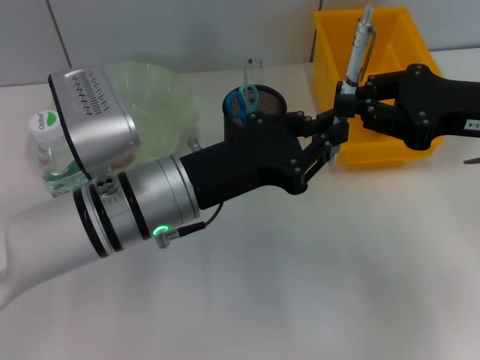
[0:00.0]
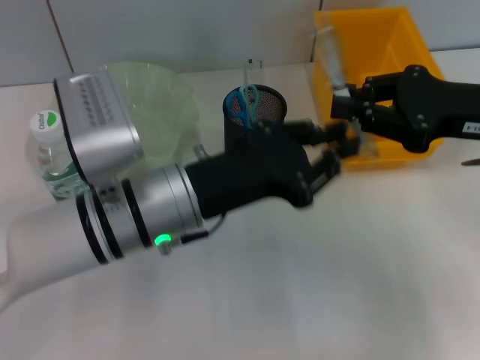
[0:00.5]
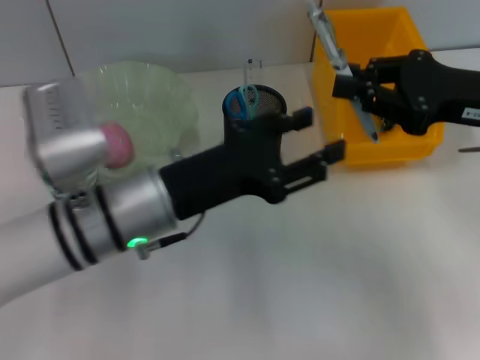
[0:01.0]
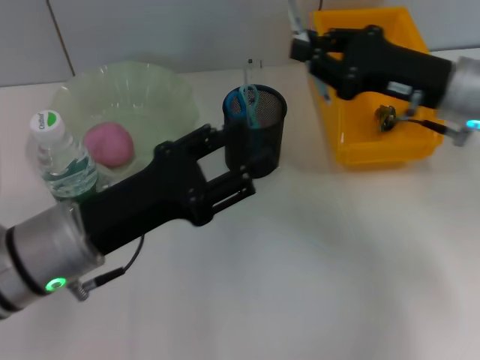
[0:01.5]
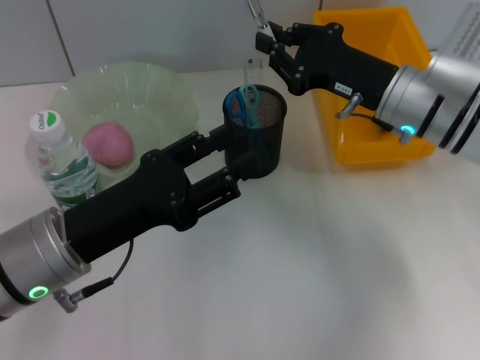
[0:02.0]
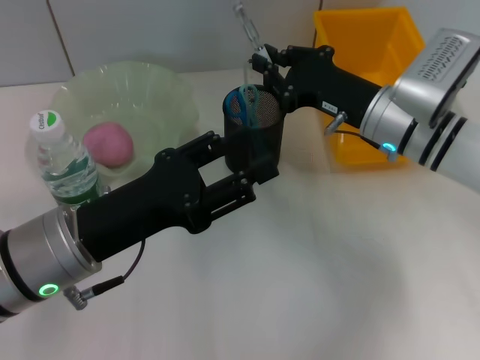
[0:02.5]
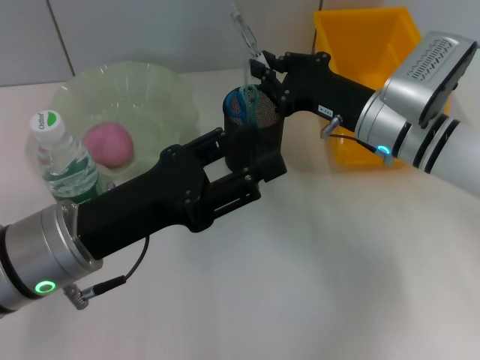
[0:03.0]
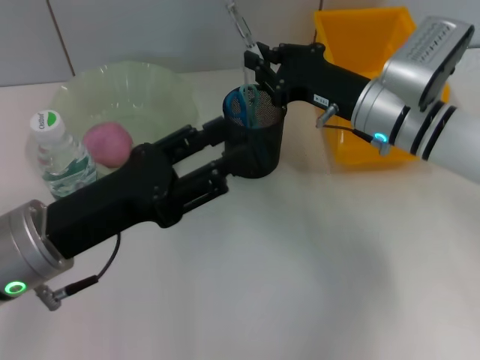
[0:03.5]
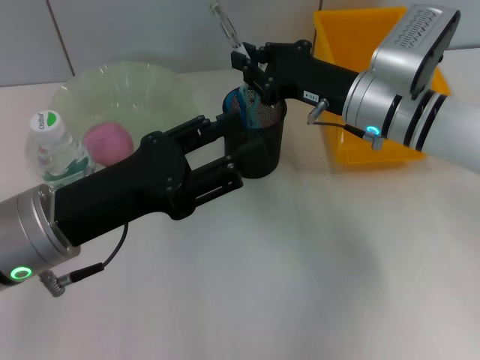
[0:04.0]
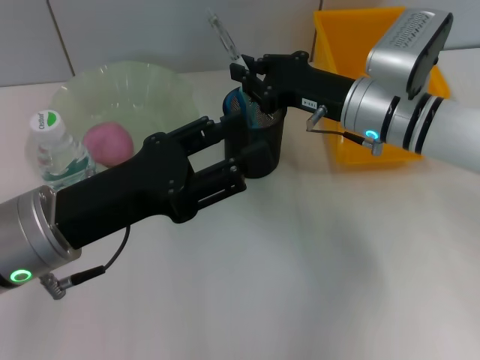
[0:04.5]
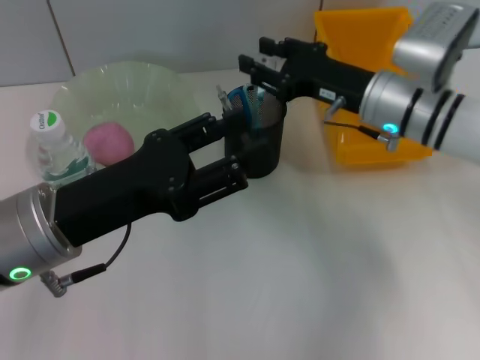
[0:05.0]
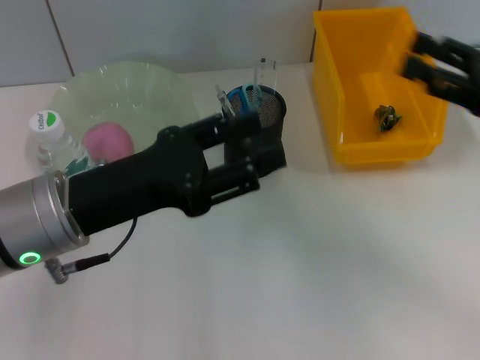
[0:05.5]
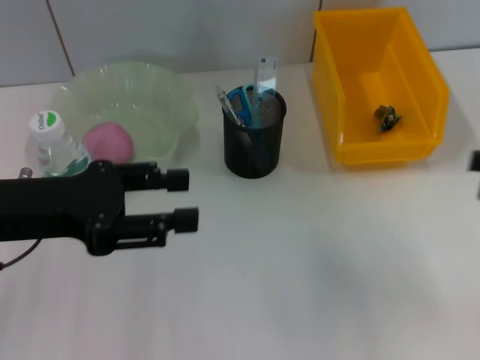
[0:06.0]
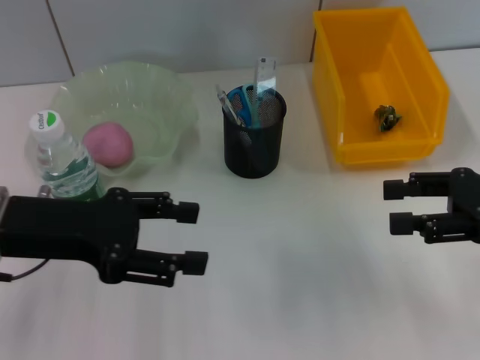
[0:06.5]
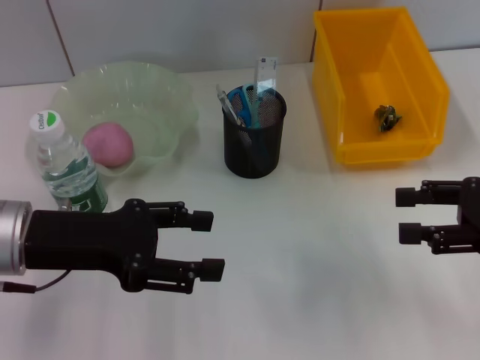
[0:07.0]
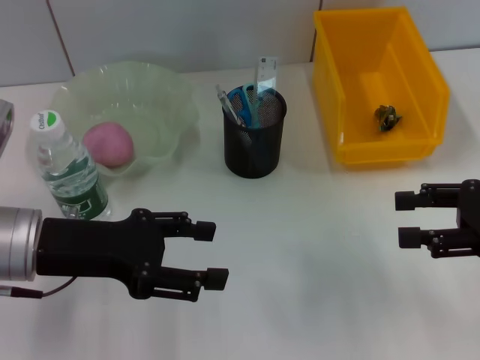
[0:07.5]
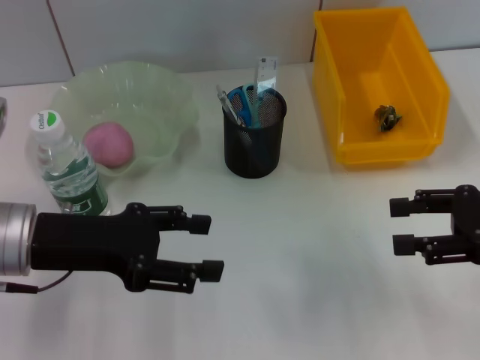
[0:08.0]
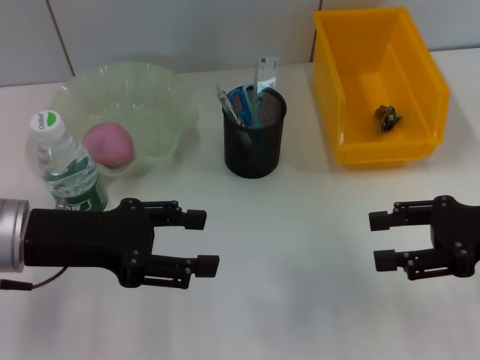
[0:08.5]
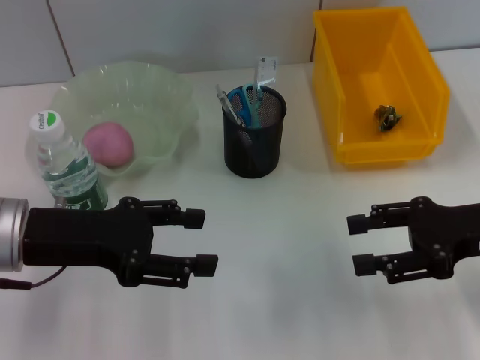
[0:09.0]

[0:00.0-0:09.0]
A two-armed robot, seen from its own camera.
Step, 0:01.0 to 0:04.5: Place the gray spring-action pen into the pen holder with the right hand.
0:00.0 to 0:02.0: The right gripper moves to the left, forward and downward, approximately 10 cm, while the left gripper travels to the left by roughly 10 cm, and opens up.
0:02.0 to 0:04.5: The grippers move only a little.
0:04.5 to 0:07.0: The left gripper moves approximately 5 cm. The right gripper goes some 20 cm to the right and backward, and opens.
0:07.0 to 0:09.0: There are only small adjustments of the grippers.

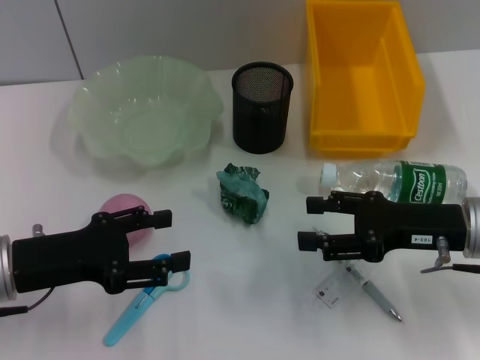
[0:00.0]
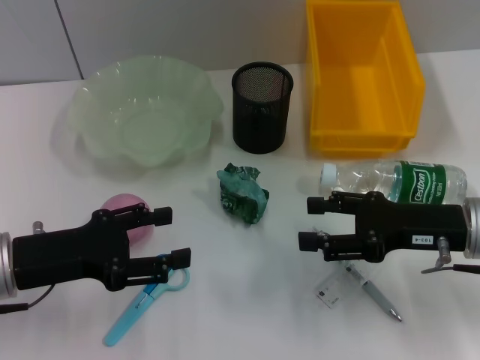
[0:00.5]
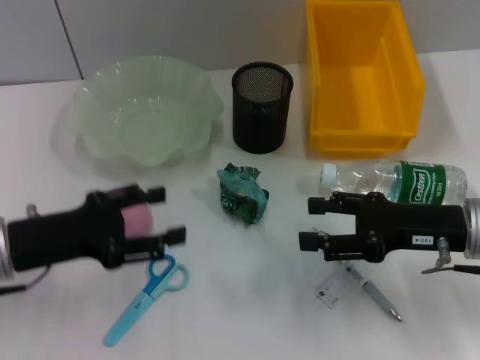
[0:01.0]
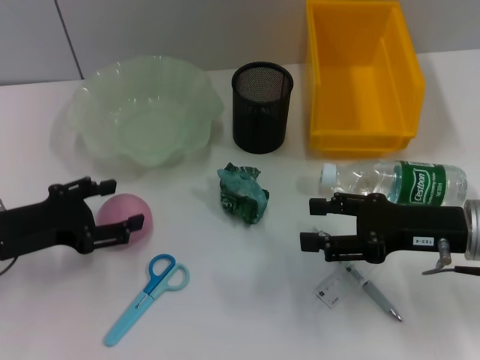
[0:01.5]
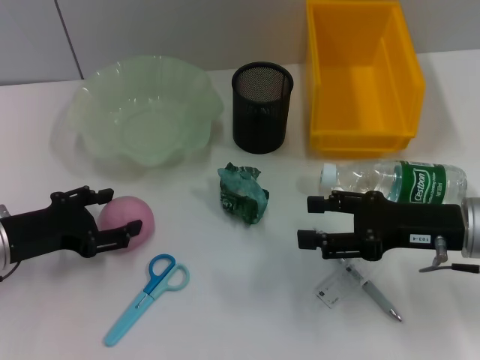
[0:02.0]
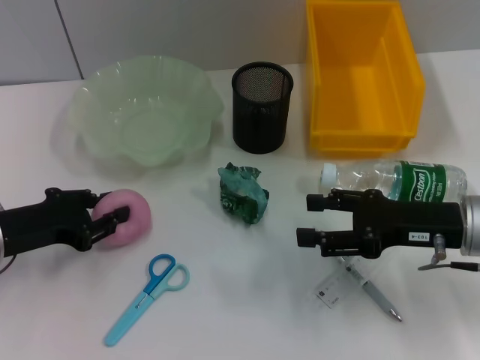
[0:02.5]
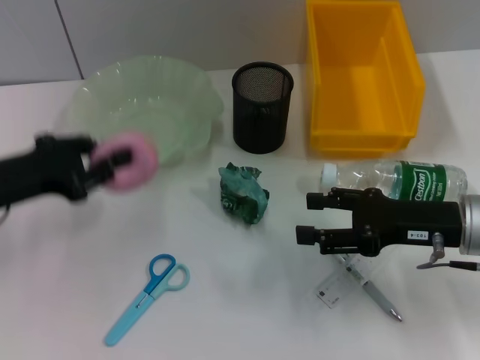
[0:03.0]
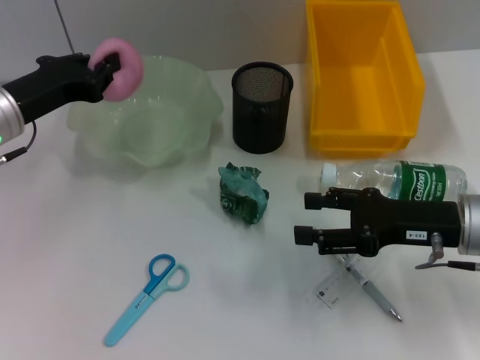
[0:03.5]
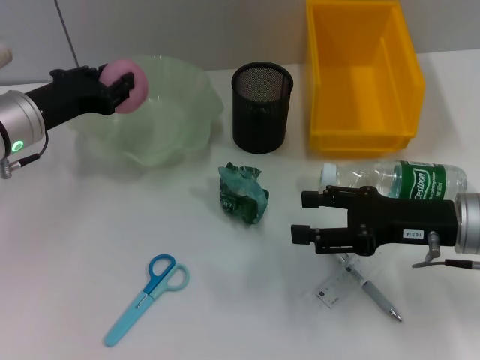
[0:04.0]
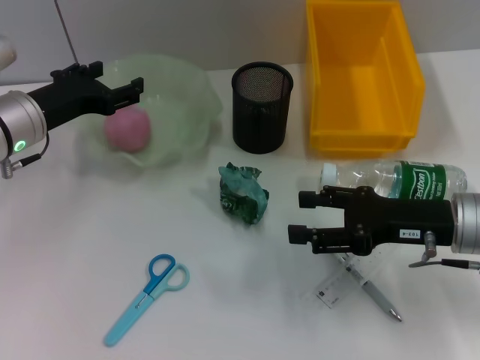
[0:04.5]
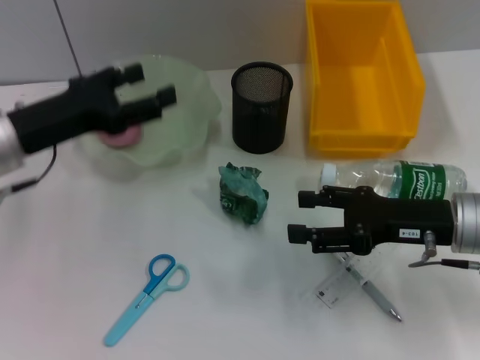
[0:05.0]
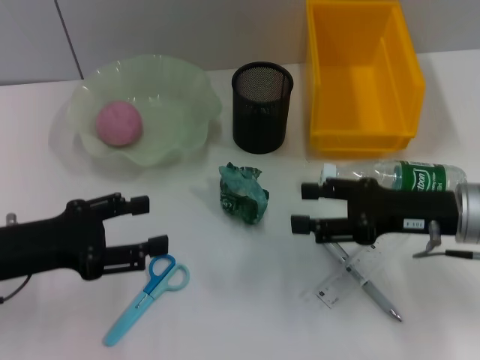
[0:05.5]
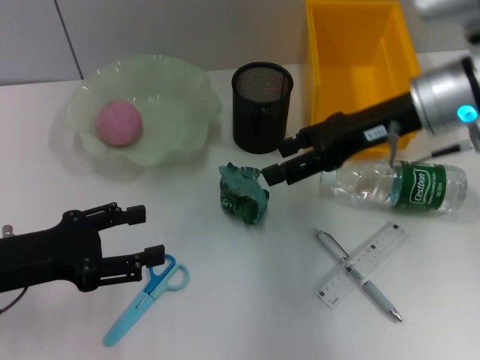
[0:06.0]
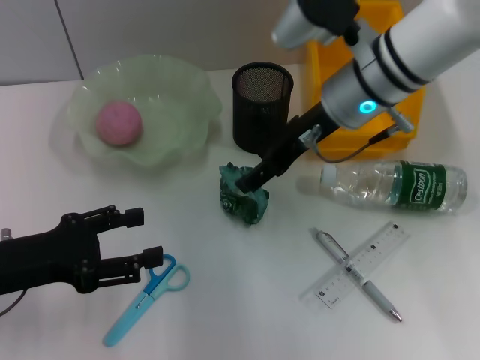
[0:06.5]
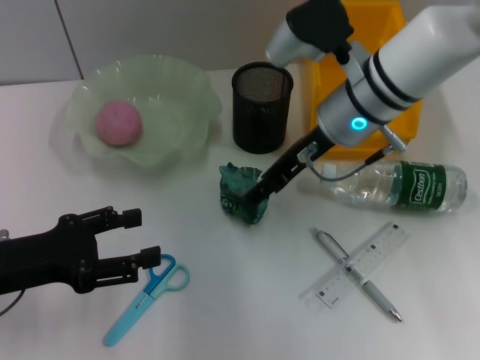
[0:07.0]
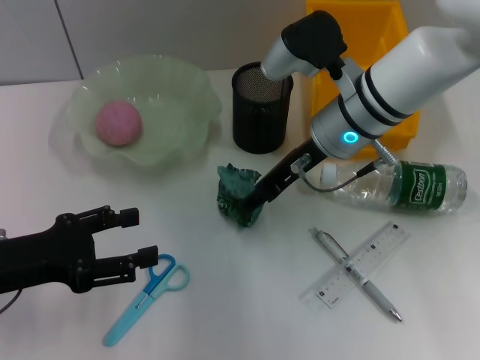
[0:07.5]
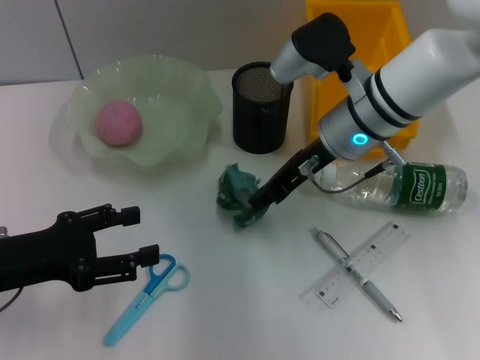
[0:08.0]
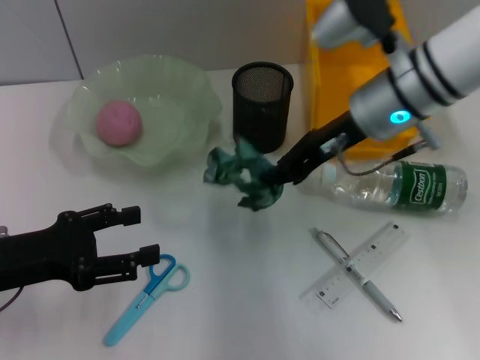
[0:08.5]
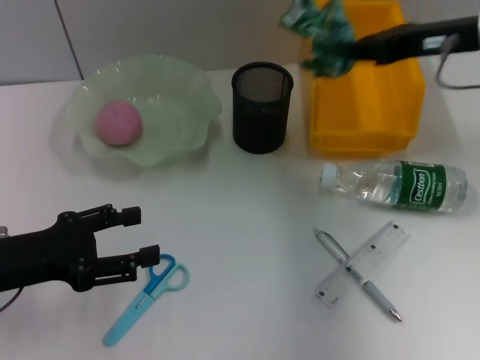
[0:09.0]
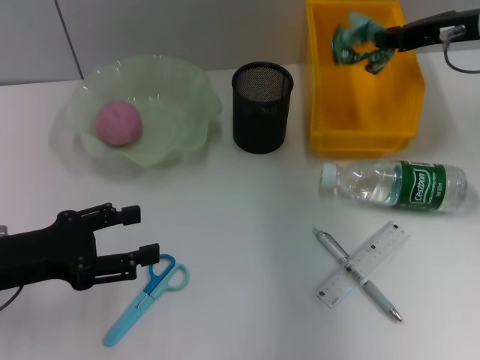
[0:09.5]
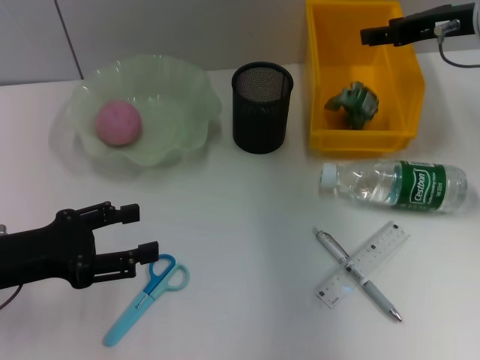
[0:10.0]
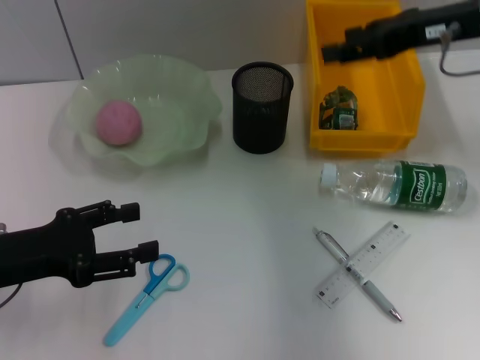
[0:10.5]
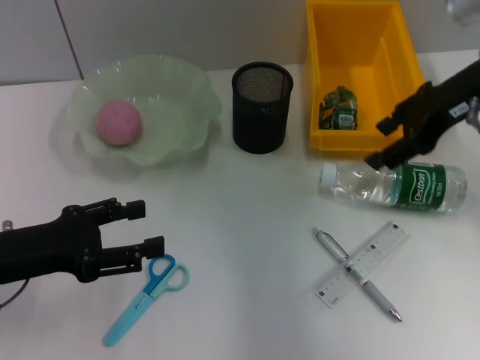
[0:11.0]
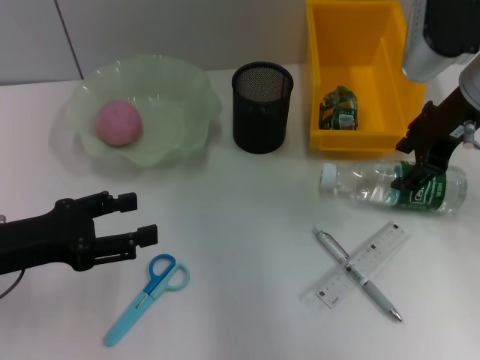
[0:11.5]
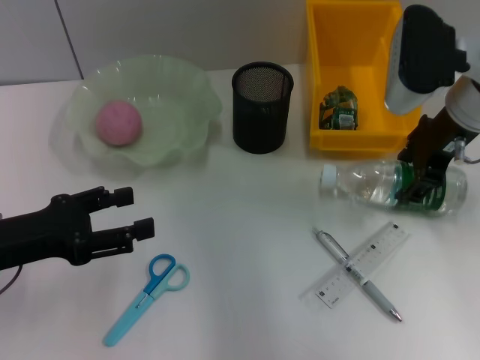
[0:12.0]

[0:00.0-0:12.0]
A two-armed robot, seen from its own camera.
Step, 0:00.0 to 0:02.0: Grab the peach with the left hand.
Step, 0:03.0 to 0:04.0: Place the peach into the fruit bowl with the left hand.
Step, 0:04.5 to 0:08.0: Grab the plastic with the right hand.
Step, 0:08.5 to 0:09.5: Place the plastic into the trash can with the right hand.
0:02.0 to 0:04.0: The left gripper moves forward, roughly 10 cm, and closes.
0:04.0 to 0:06.0: The left gripper shifts some 15 cm backward, and opens its fingers, while the right gripper is displaced upward and forward by roughly 15 cm.
0:06.0 to 0:08.0: The right gripper heads to the left, covering about 5 cm, and closes up.
0:08.0 to 0:10.0: The right gripper goes some 15 cm to the right and upward.
0:10.0 to 0:12.0: The right gripper heads to the left, covering approximately 5 cm, and opens up.

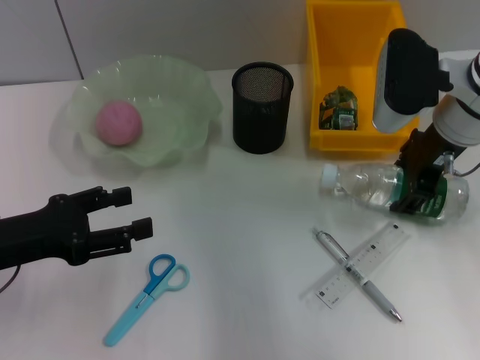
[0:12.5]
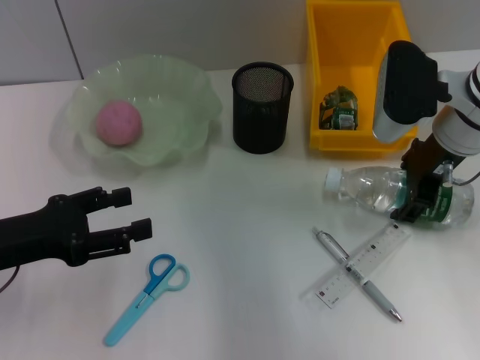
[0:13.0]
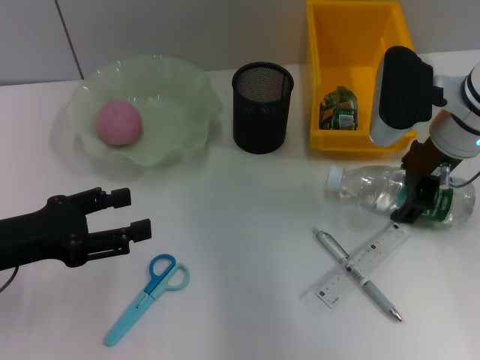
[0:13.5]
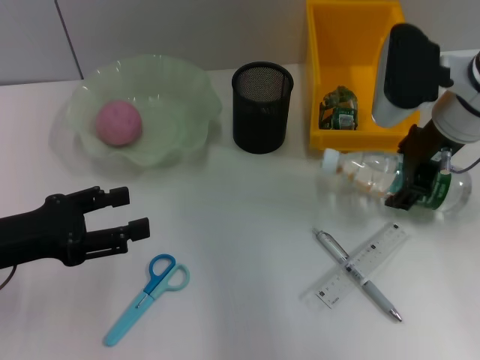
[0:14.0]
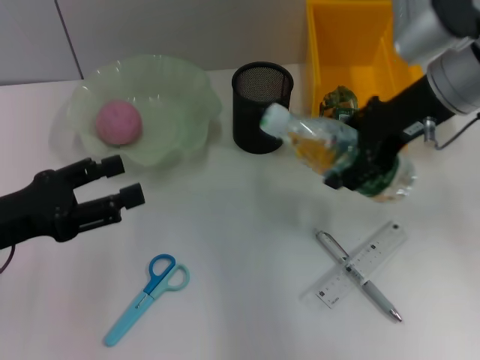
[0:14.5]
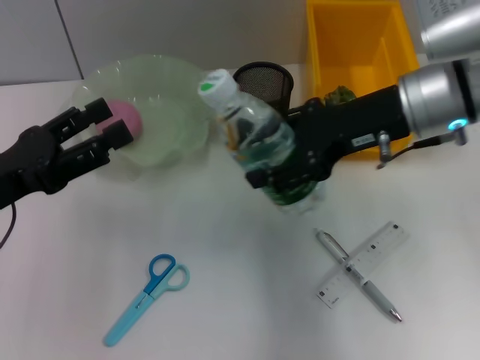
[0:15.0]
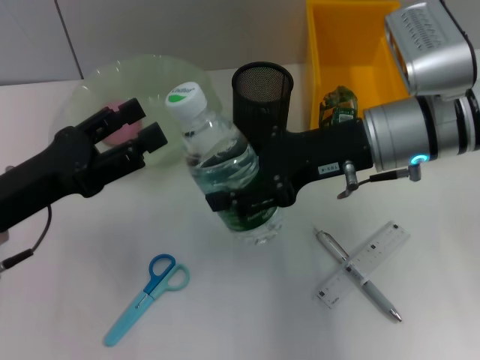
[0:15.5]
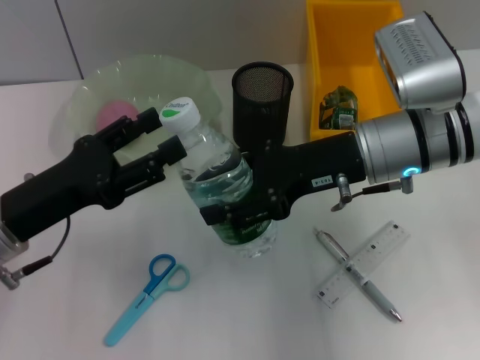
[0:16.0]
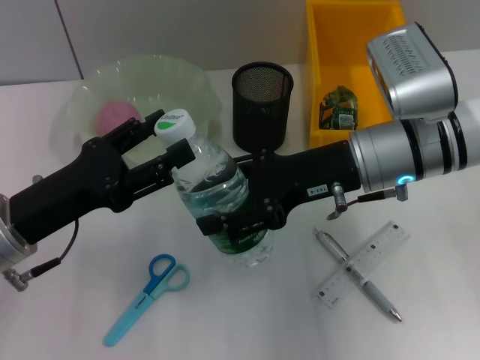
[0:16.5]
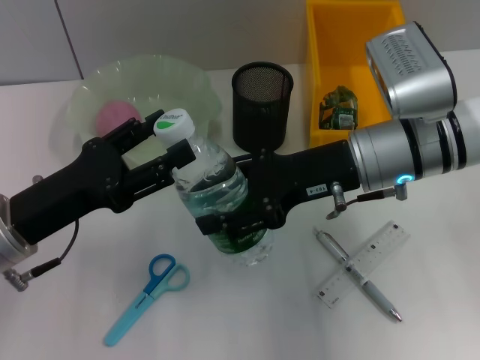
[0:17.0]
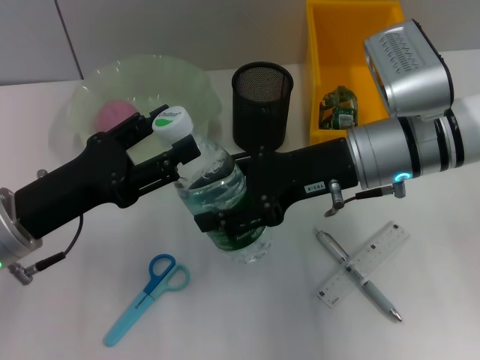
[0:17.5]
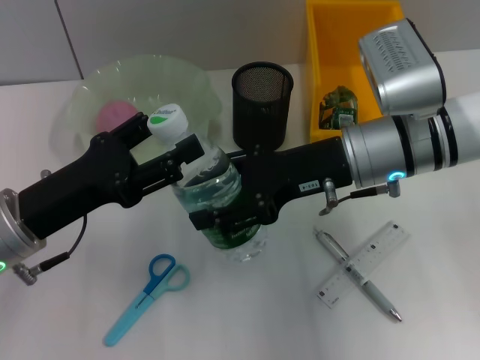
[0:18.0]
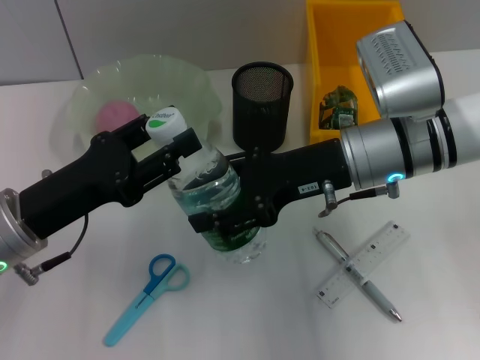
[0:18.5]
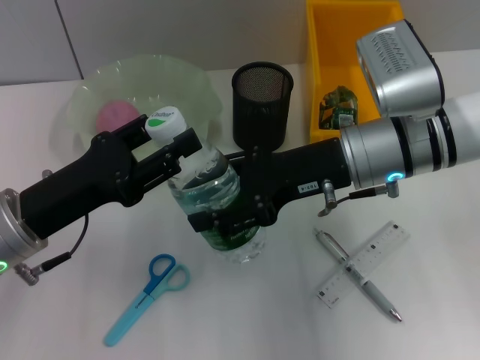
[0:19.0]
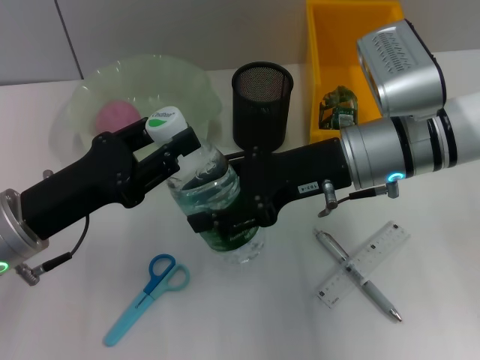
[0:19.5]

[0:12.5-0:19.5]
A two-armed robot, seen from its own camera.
0:12.5 to 0:14.5: The right gripper is displaced upward by roughly 5 cm.
0:14.5 to 0:16.0: The right gripper heads downward, covering roughly 5 cm.
0:16.0 to 0:19.5: Both grippers stay put.
